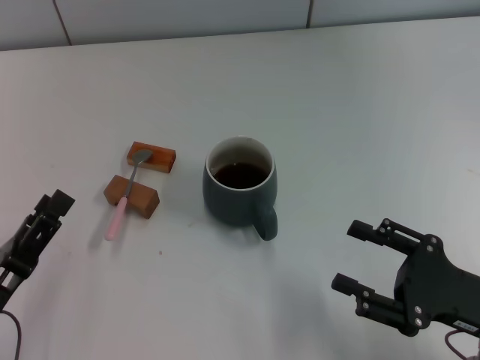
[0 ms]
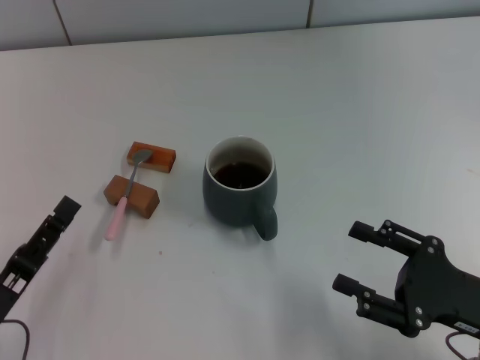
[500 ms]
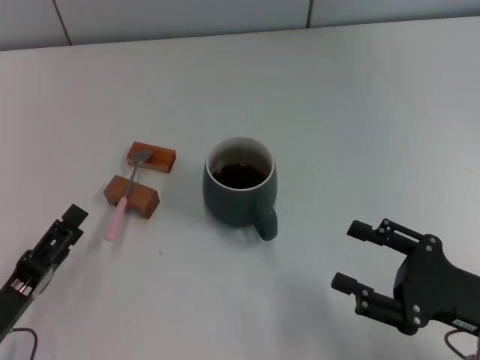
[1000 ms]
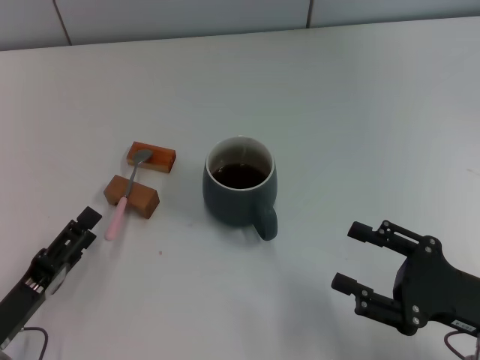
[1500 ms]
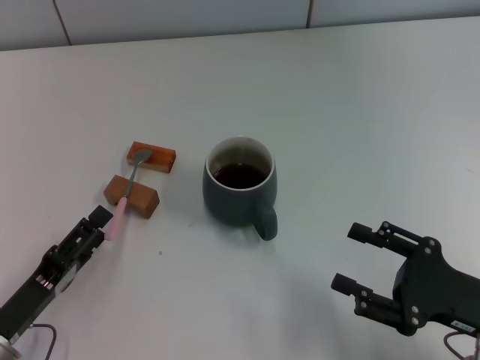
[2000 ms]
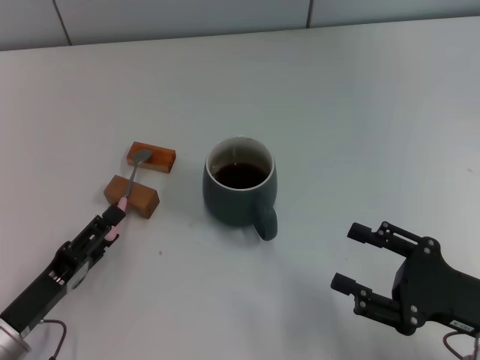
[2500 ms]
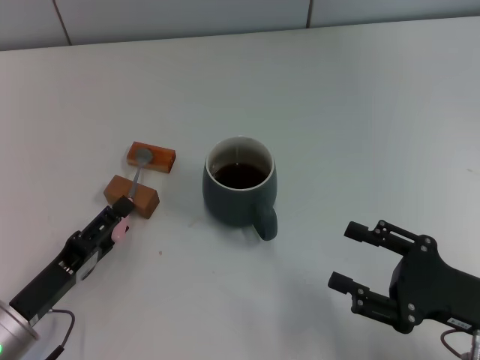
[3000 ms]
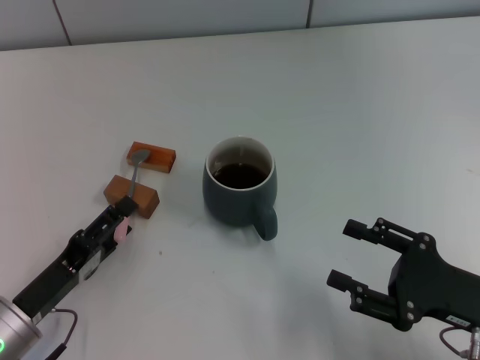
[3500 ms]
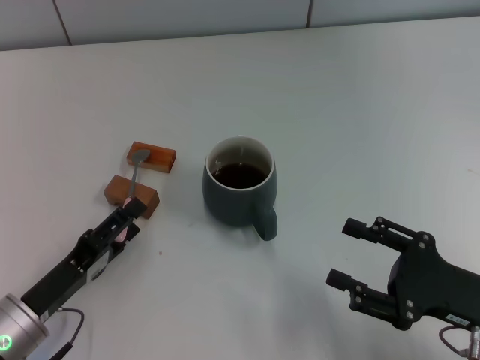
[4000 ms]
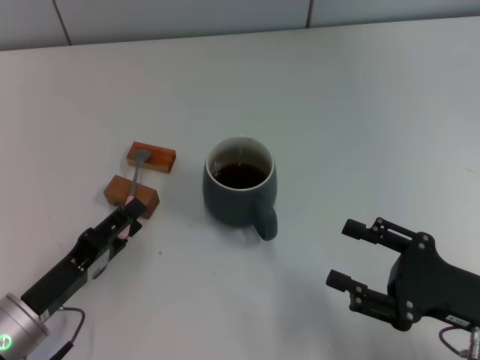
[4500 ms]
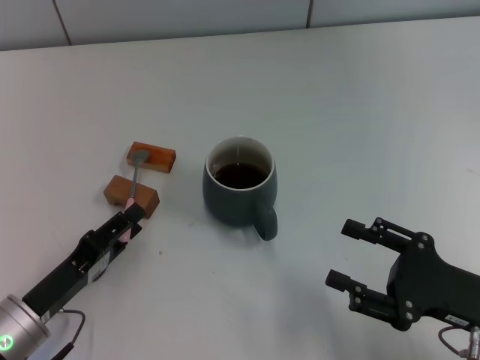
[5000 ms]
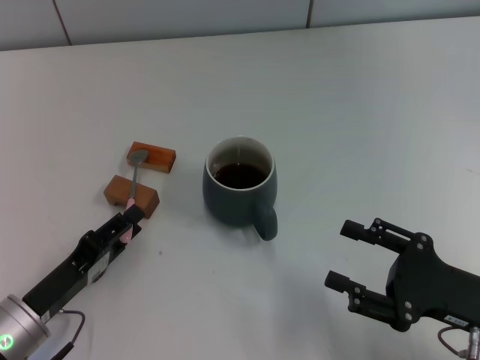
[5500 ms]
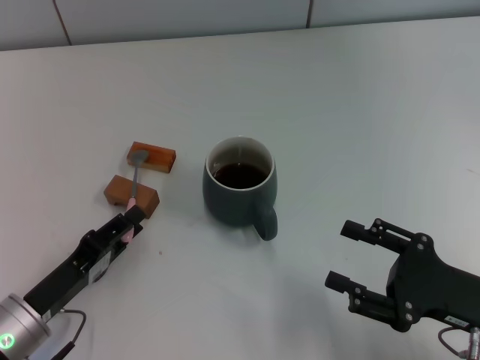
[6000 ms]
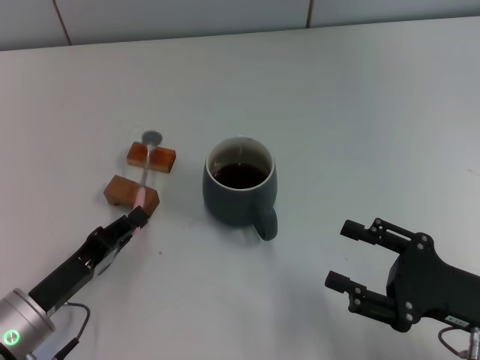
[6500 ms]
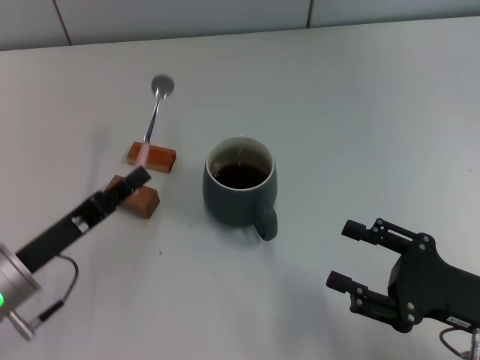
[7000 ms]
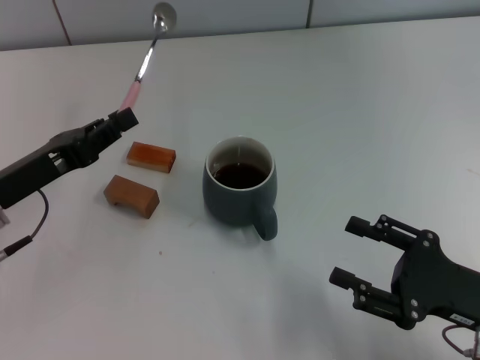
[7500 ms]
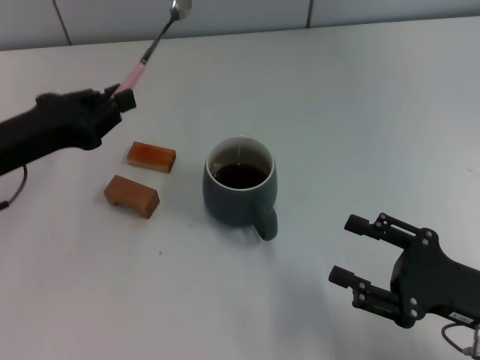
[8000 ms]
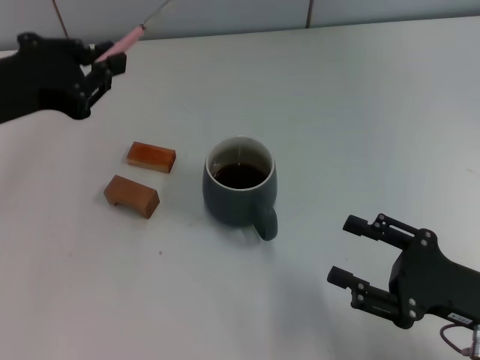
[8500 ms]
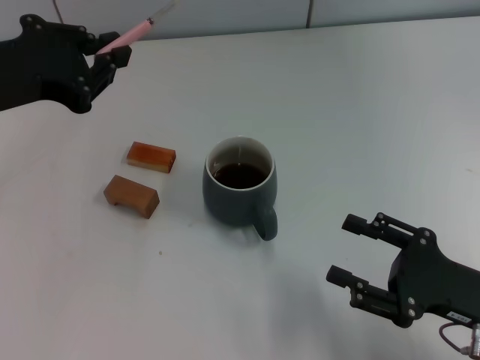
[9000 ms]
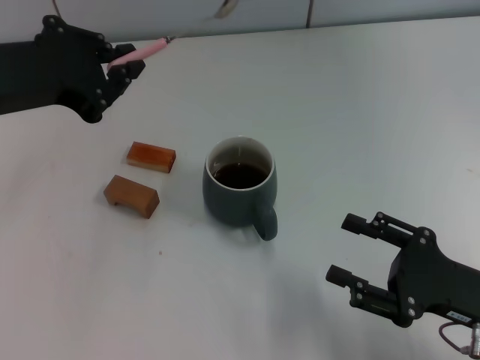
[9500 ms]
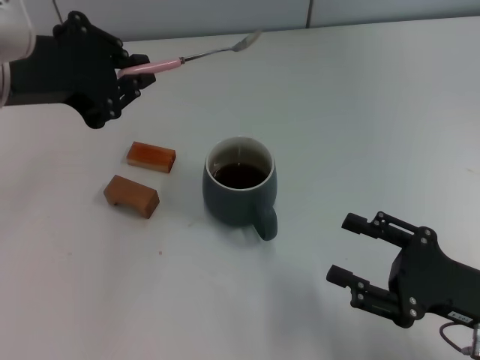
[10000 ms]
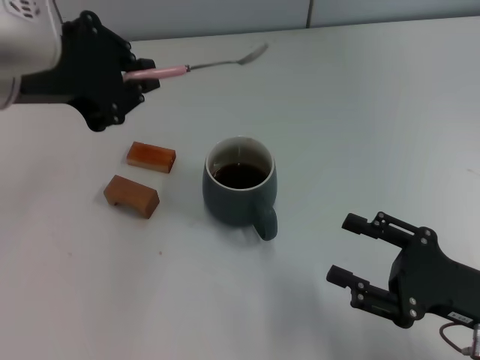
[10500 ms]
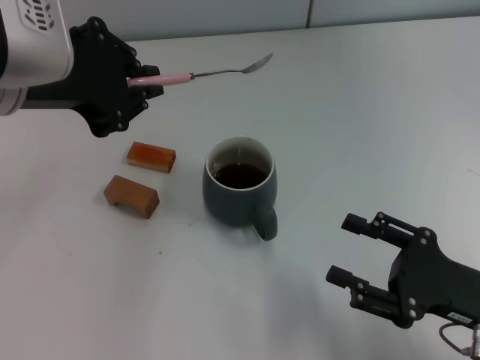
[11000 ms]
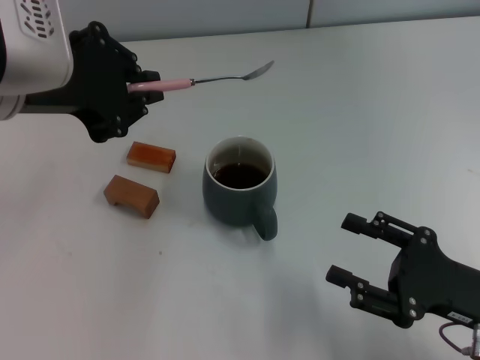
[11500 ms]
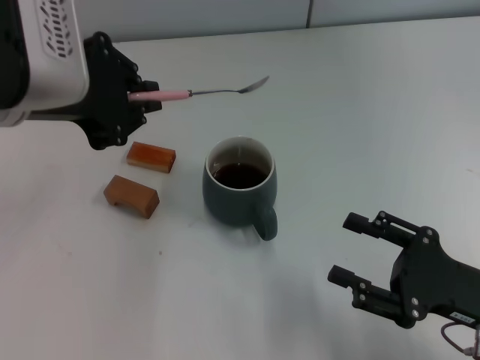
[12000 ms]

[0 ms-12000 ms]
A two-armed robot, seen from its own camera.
Task of the whole recording: Move the grey cup to the center, lift the pink spoon, stir it three times in the cup, and put the spoon into the cup.
Step, 0 ms to 7000 ms: Pick up the spoon with the left gripper.
2000 ms to 4000 ms: The grippers move only a little.
4000 ms to 6000 ms: The left gripper closes up.
6000 ms to 8000 ms: The left gripper is displaced upward and forward by some 20 cm, and closes its fingers.
8000 ms to 10000 ms: The left gripper is displaced upward and to the right by roughly 15 cm.
10000 ms to 12000 ms: The grippers make only small movements.

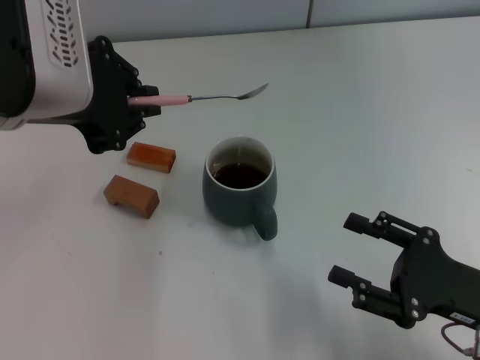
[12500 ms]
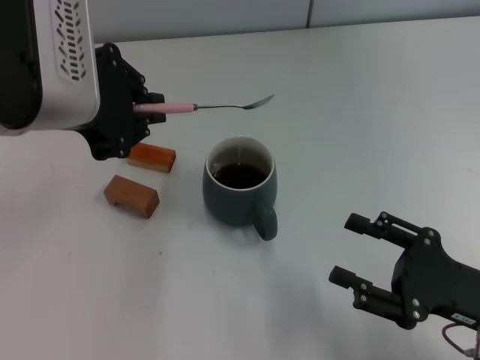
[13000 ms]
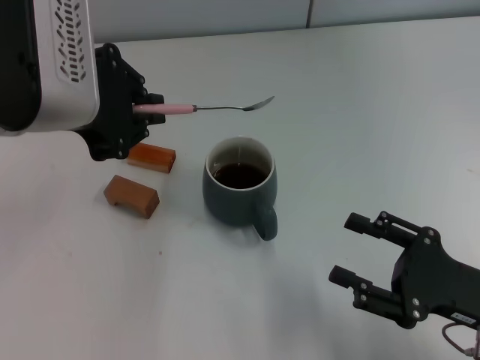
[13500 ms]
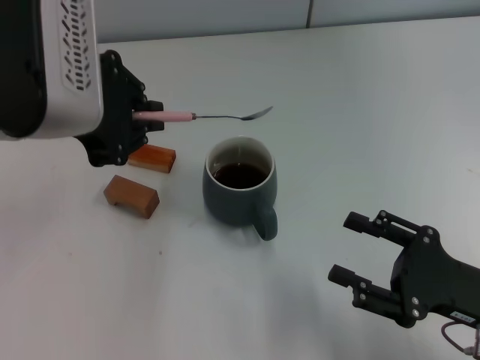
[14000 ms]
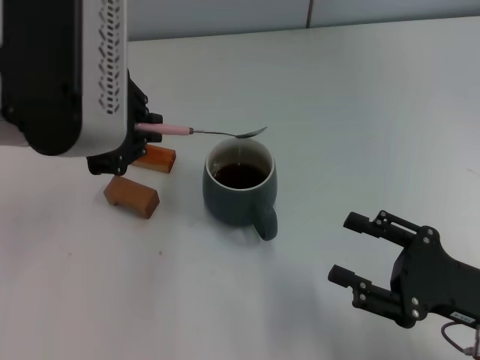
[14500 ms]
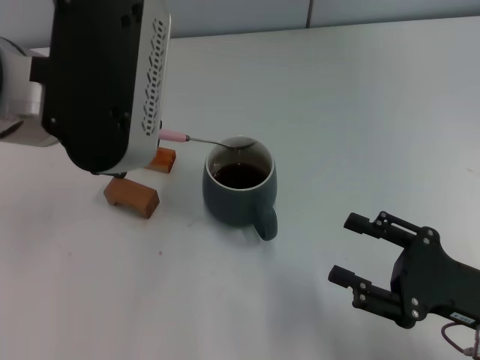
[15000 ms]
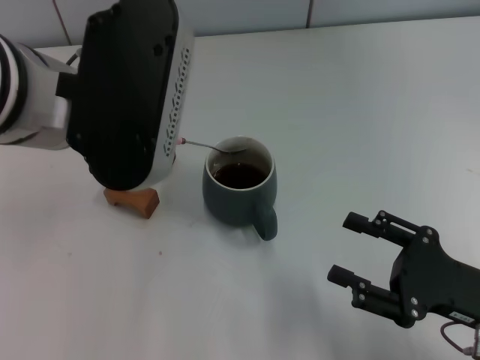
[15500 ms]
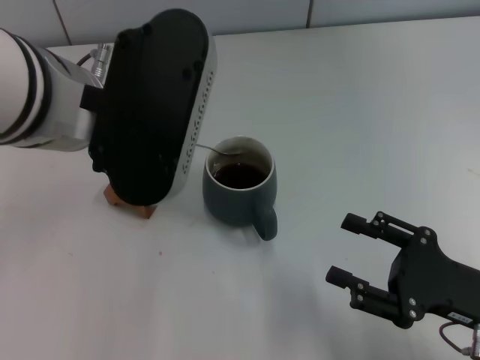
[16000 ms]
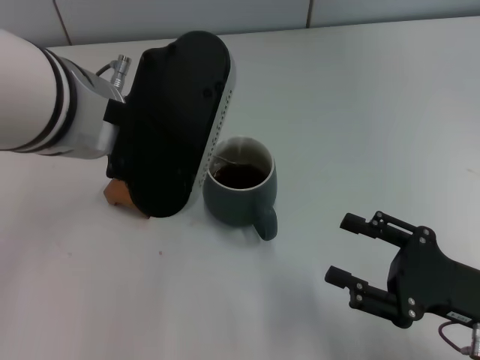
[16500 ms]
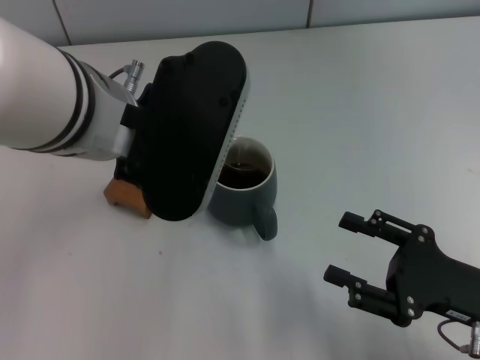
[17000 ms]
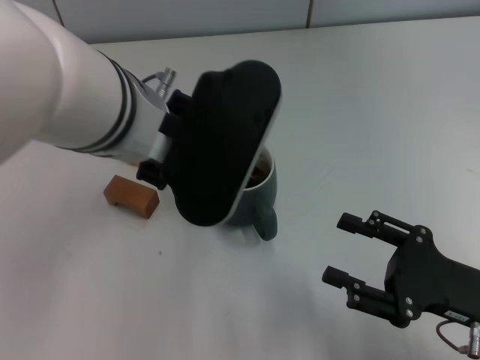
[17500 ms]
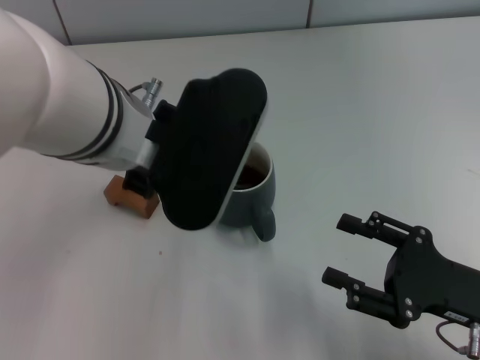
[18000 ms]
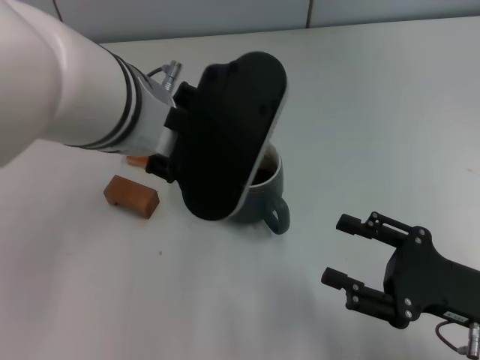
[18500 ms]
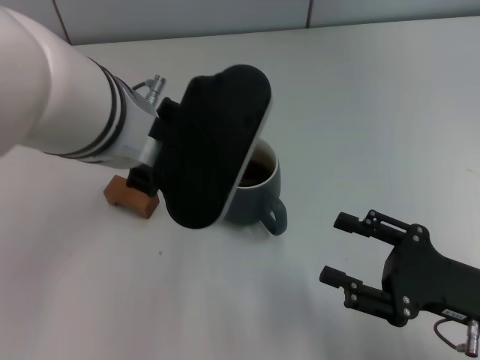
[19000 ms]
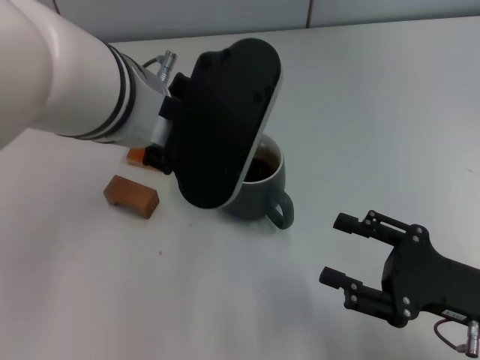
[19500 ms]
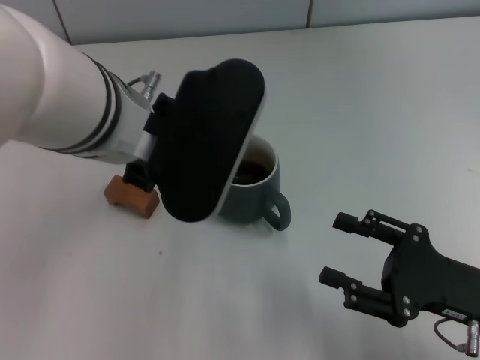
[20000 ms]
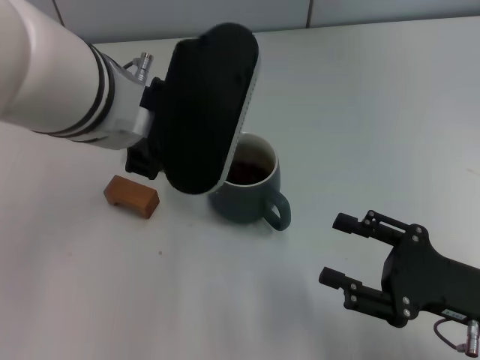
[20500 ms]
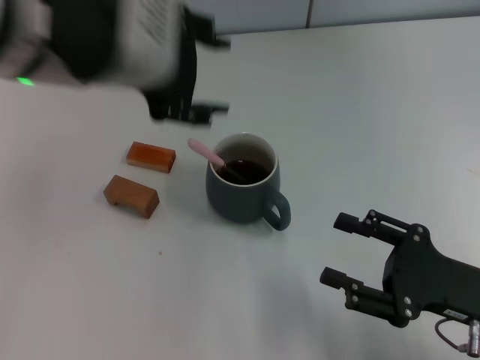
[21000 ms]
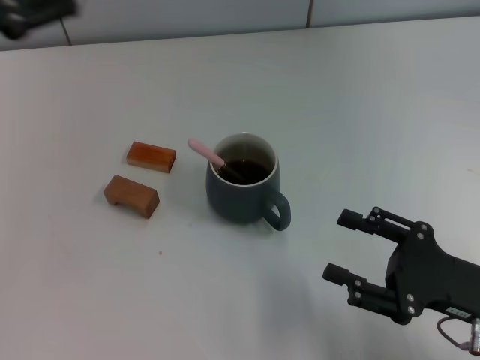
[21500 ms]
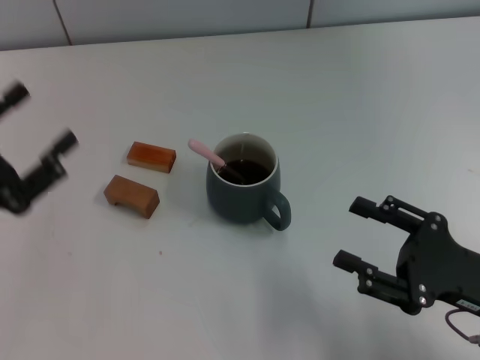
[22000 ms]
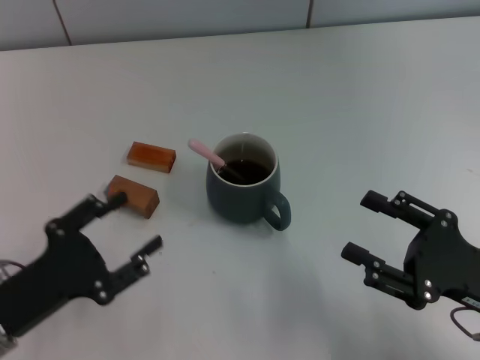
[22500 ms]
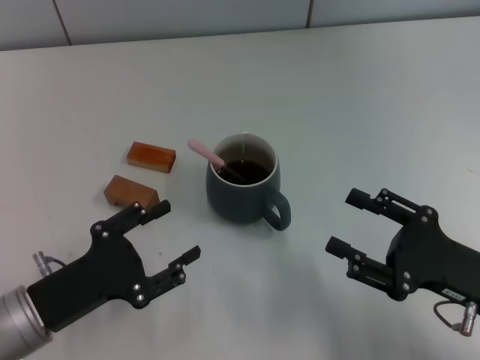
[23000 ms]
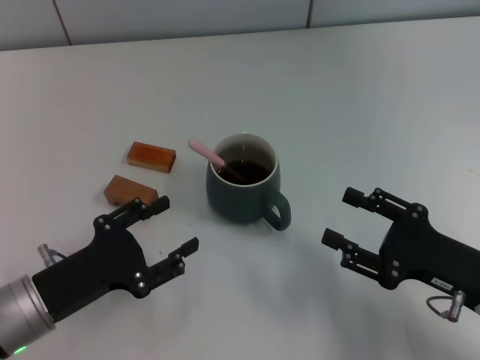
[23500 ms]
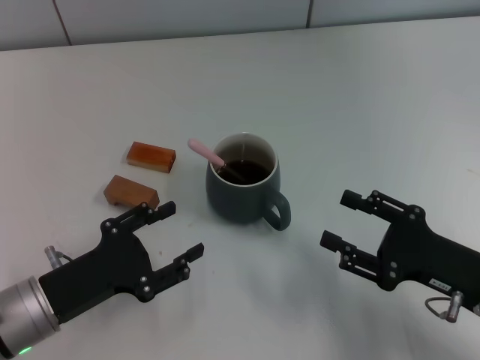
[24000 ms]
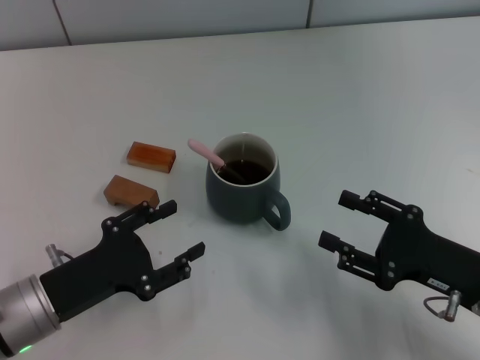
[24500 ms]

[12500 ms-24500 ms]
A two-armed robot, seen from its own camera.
Task of the whole recording: Move the grey cup to the center, lift the pink spoon, stir it three times in the cup, and put the spoon into the cup.
Step, 12500 ms to 21000 ms: Stir the coffee in the cup with the left gripper.
12500 ms to 14500 ms: The grippers stay close to where they were, moving slightly.
14500 ms to 16500 ms: The left gripper ends up some 5 cm from where it was.
16500 ms to 20500 ms: The grippers make only small movements.
20500 ms to 22500 ms: The left gripper heads downward, to the left and backward, covering some 30 cm, and opens up.
22500 ms to 24500 ms: The grippers stay close to where they were, moving slightly.

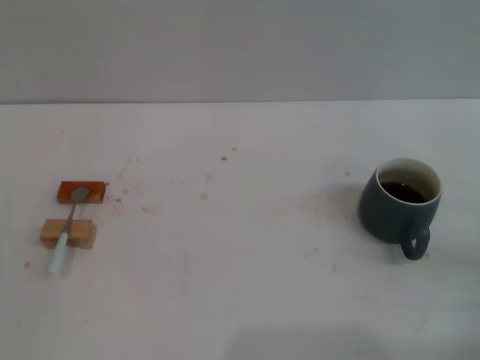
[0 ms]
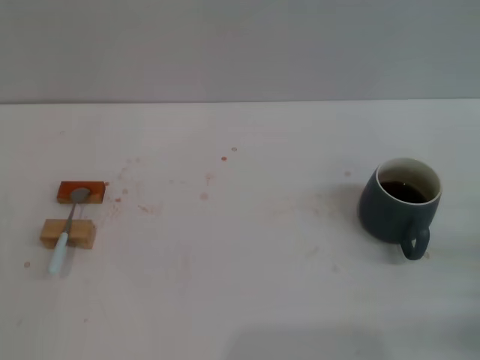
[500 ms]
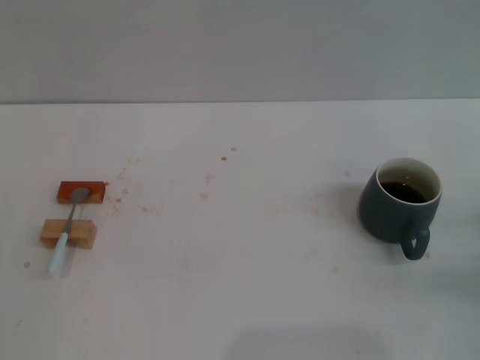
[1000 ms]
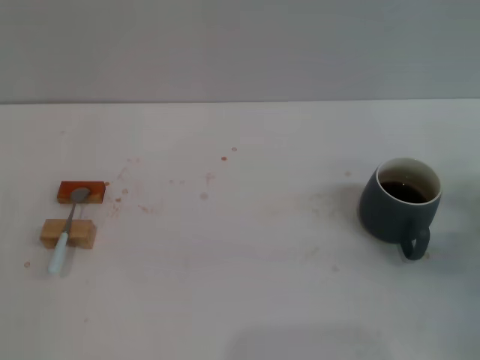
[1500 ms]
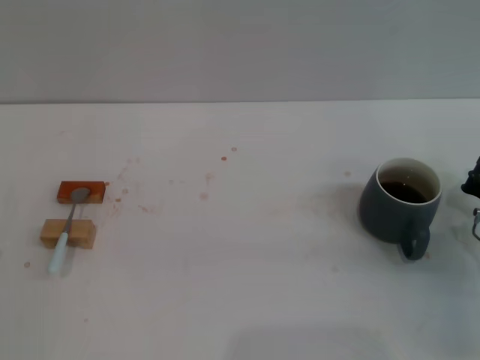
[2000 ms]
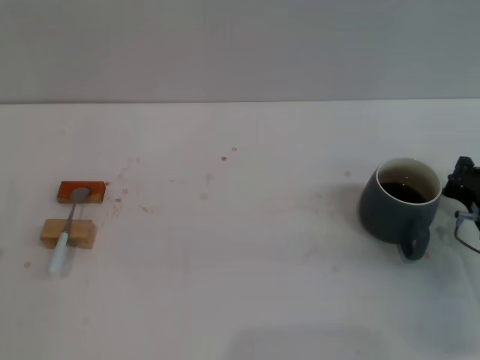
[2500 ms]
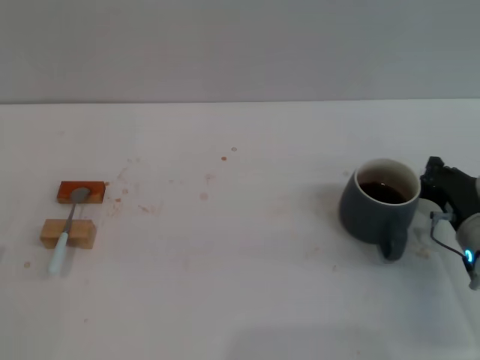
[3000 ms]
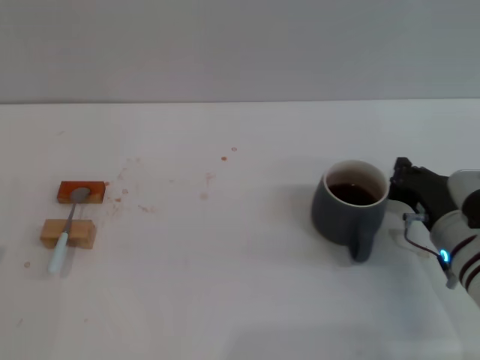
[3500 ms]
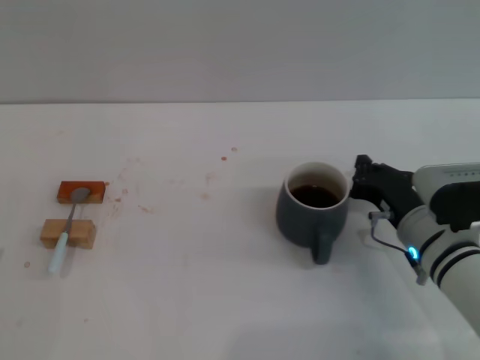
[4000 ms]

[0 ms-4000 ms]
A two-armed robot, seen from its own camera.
Task of the whole recording: Move the grey cup to the center, lift the blue spoon, stir it three times in the cup, and put the spoon into the cup.
0 ms to 2000 ms: The right gripper shifts roughly 10 cm forward.
2000 ms to 4000 ms: The right gripper heads to the left, covering roughly 10 cm.
